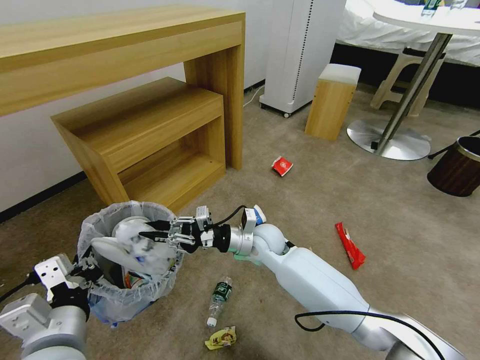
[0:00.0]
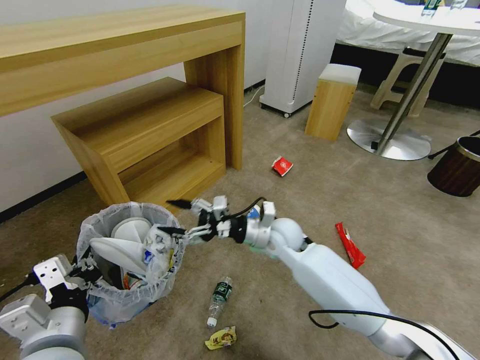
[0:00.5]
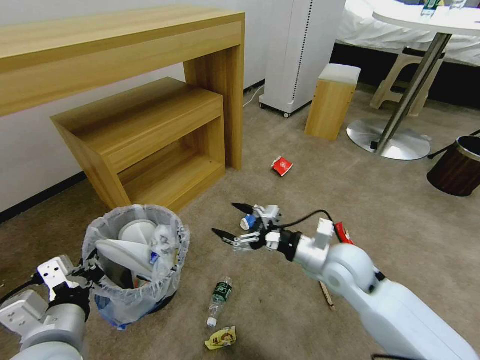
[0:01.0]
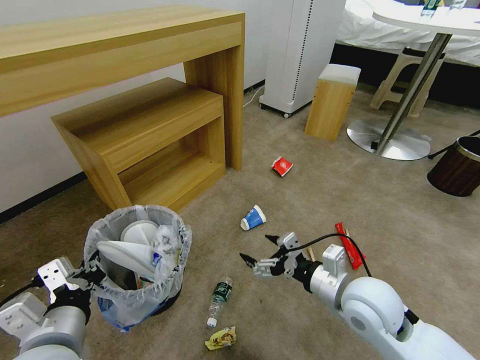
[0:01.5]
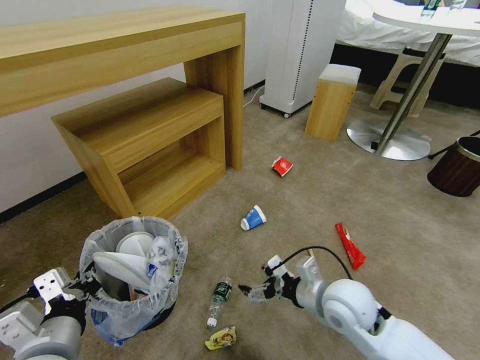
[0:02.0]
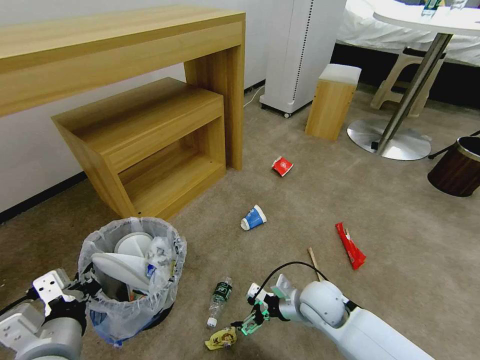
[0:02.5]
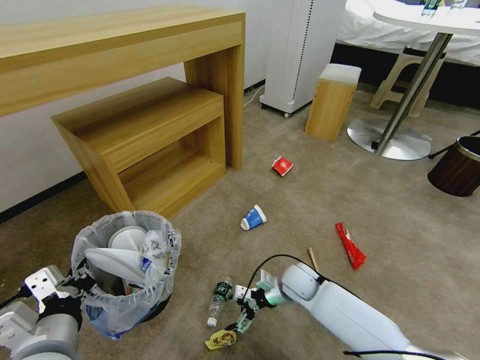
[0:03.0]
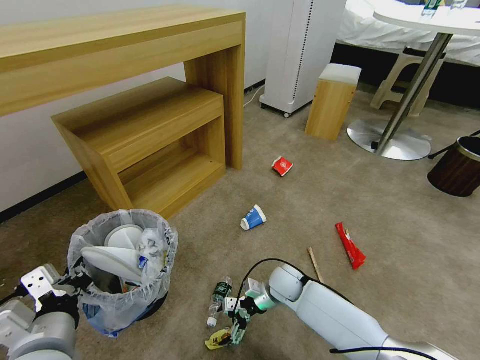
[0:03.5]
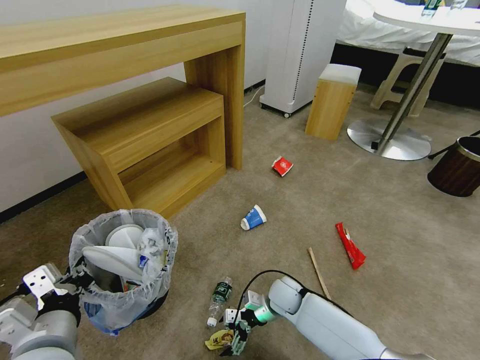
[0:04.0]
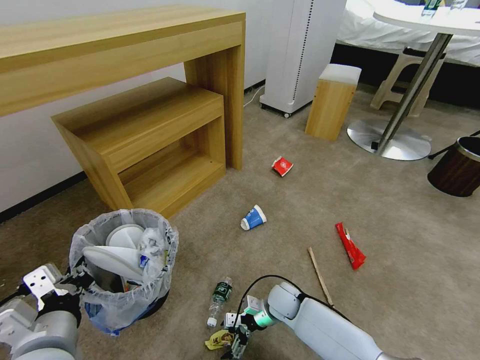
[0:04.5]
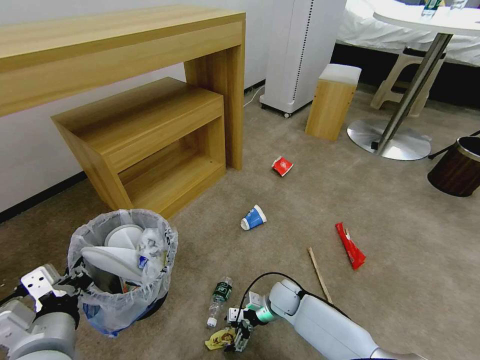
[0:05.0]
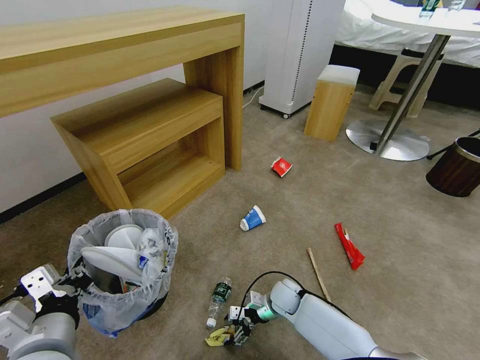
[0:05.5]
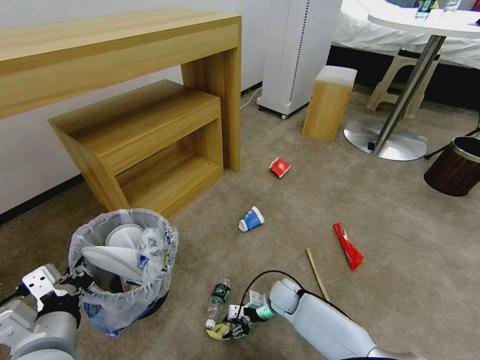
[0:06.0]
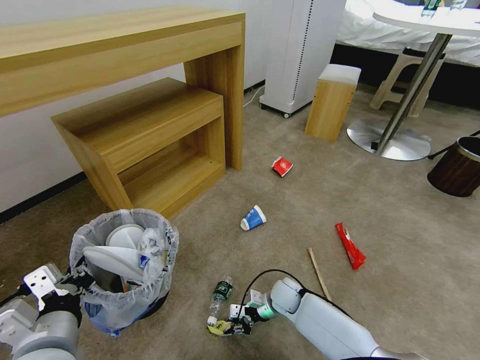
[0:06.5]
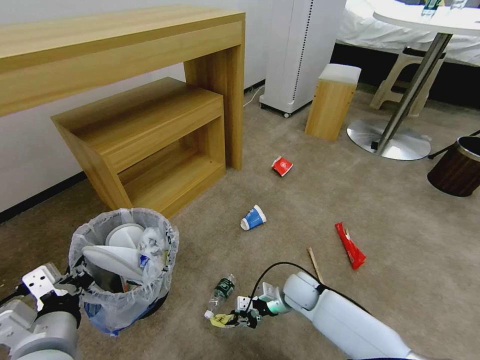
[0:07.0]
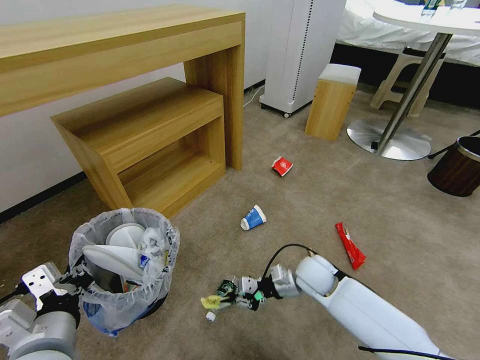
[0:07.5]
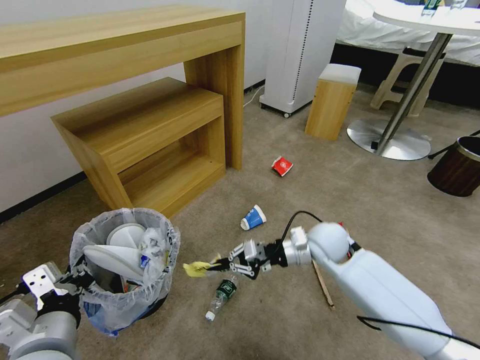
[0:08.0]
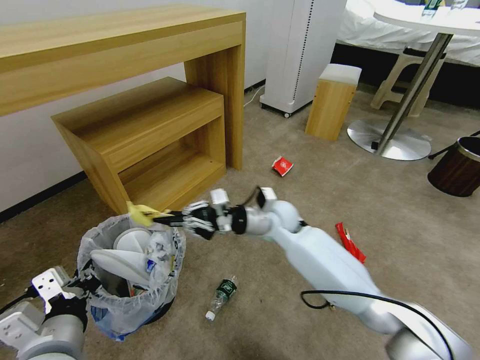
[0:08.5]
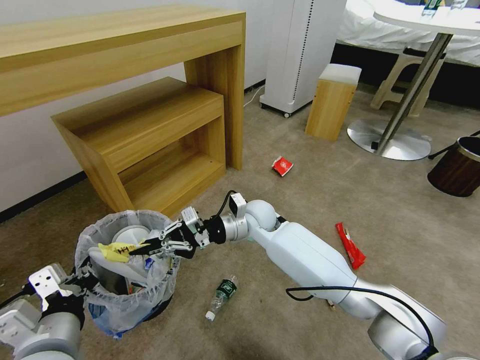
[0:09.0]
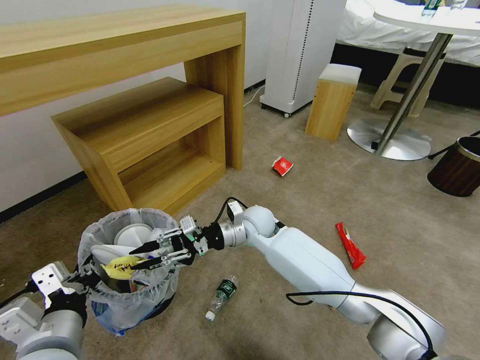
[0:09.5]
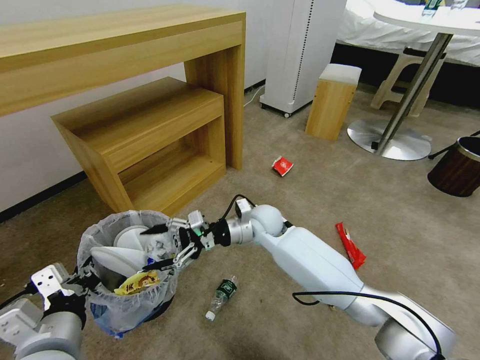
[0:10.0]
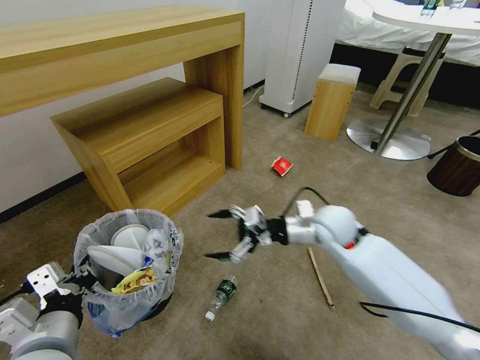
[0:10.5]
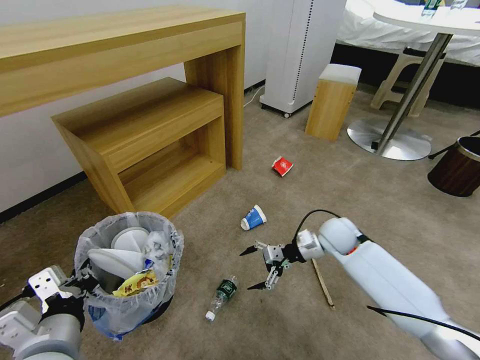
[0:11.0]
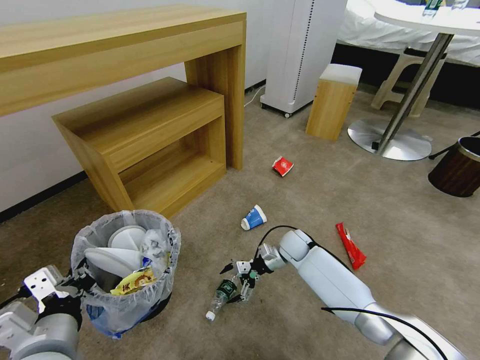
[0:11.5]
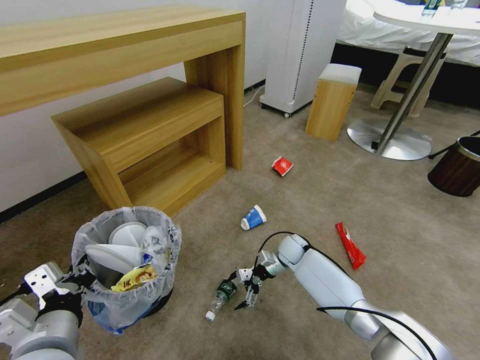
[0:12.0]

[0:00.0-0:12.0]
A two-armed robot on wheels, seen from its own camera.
Task of the whole recording: Pick up the trash bin and place the garbage on the floor into it.
0:00.0 to 0:02.0: The right gripper is displaced backward and to the right by approximately 20 cm, and opens up.
0:02.0 to 0:04.0: The right gripper moves downward and forward, about 20 cm.
0:04.0 to 0:06.0: The right gripper closes its fingers.
0:06.0 to 0:08.0: The right gripper moves upward, some 25 cm, and closes its fingers.
0:08.0 to 0:10.0: The right gripper heads to the left, covering about 15 cm, and opens.
0:10.0 to 0:12.0: The right gripper travels downward and to the right by approximately 20 cm.

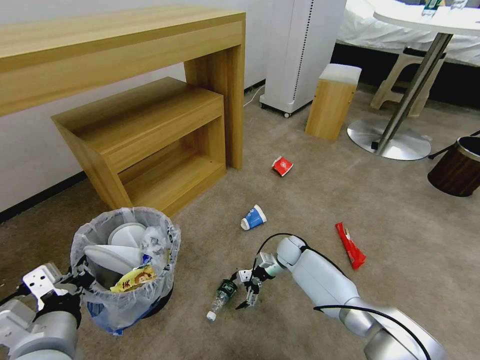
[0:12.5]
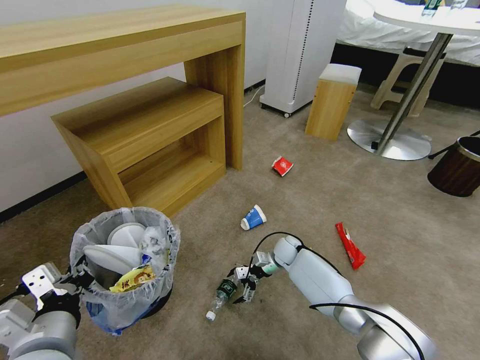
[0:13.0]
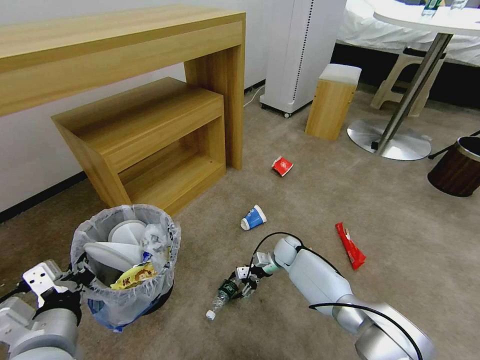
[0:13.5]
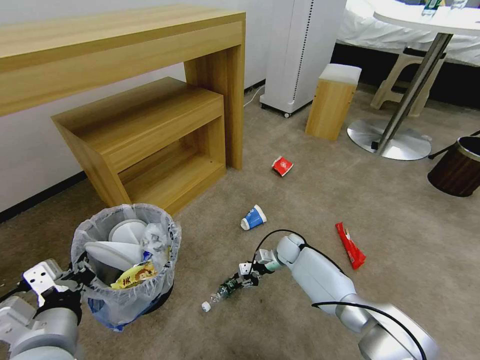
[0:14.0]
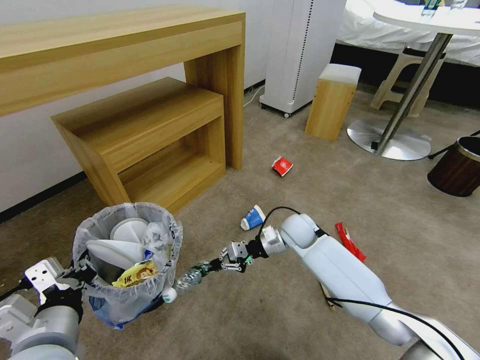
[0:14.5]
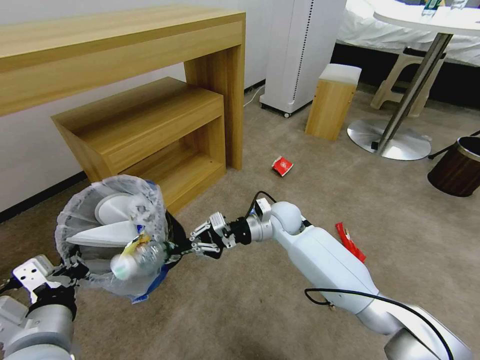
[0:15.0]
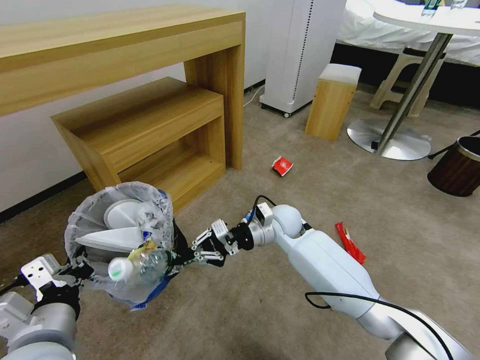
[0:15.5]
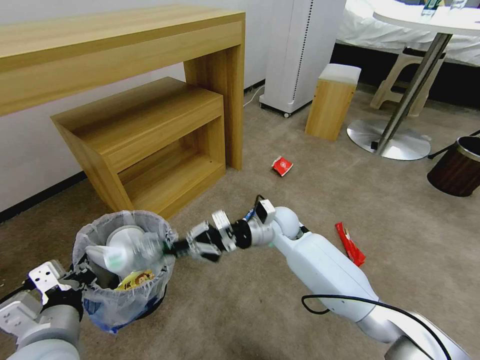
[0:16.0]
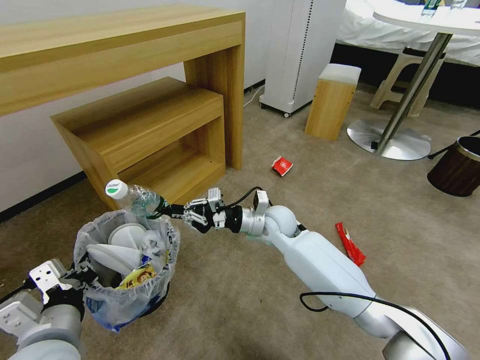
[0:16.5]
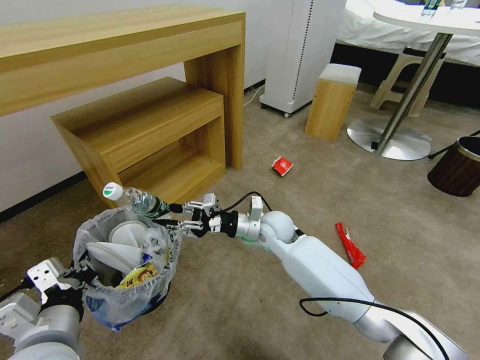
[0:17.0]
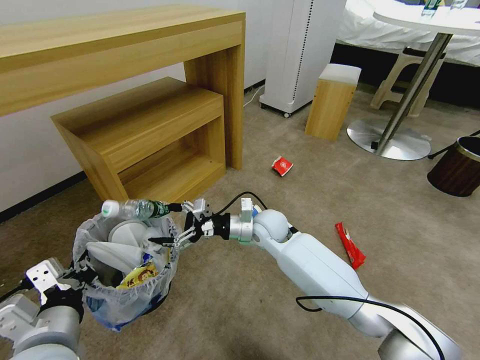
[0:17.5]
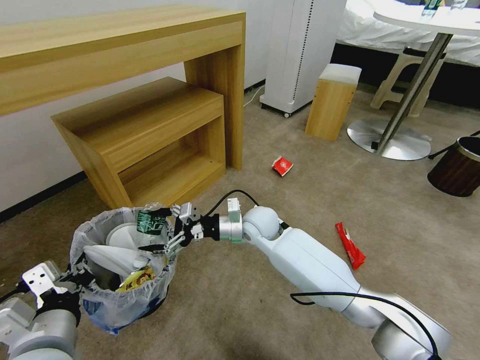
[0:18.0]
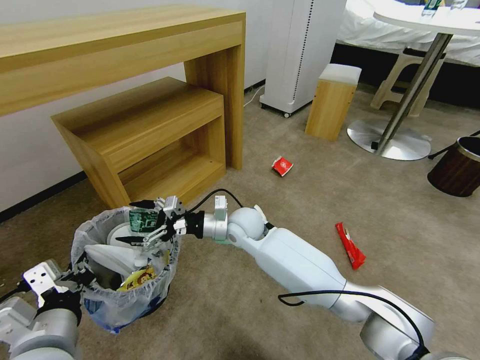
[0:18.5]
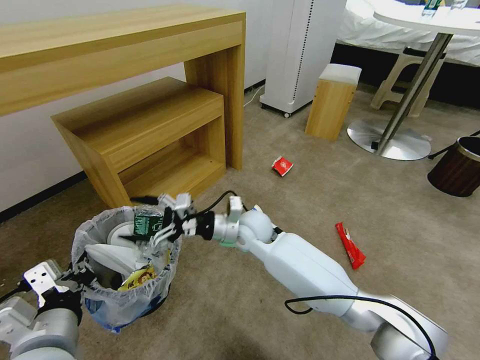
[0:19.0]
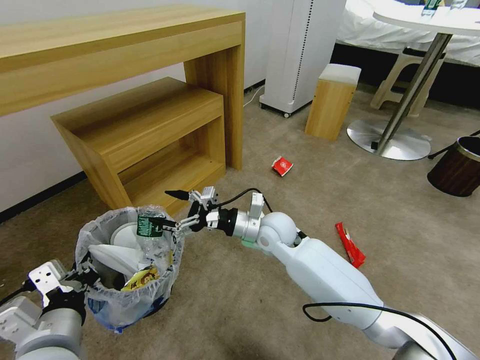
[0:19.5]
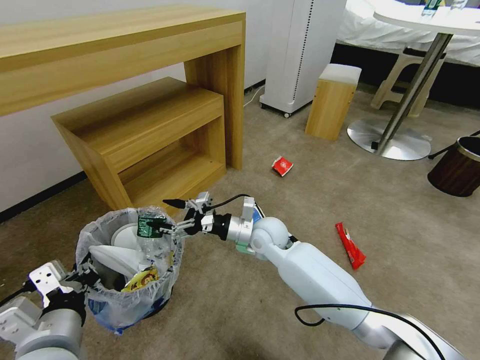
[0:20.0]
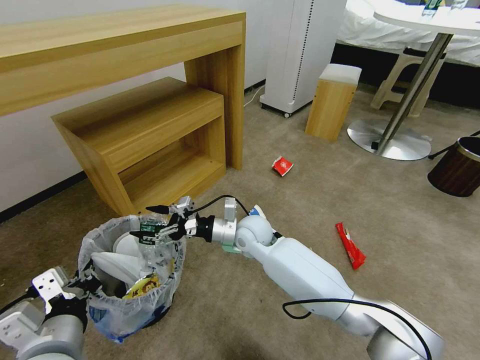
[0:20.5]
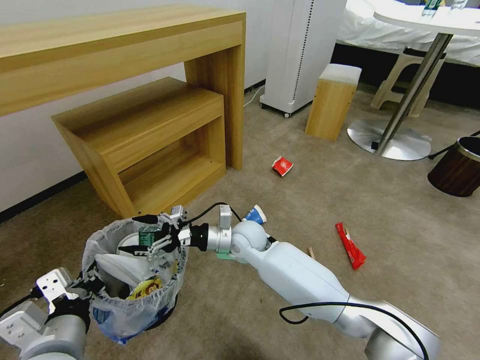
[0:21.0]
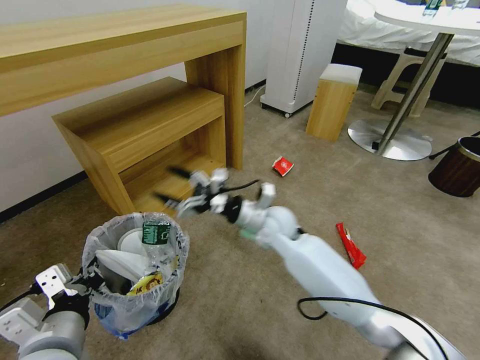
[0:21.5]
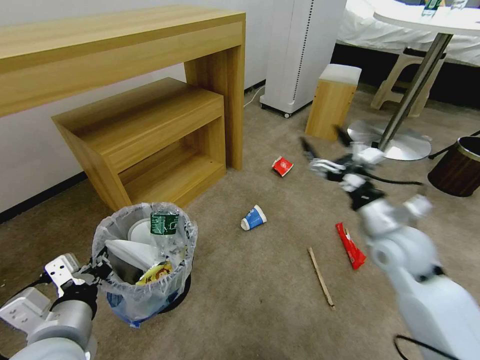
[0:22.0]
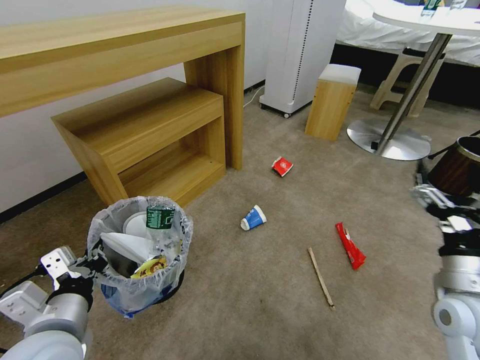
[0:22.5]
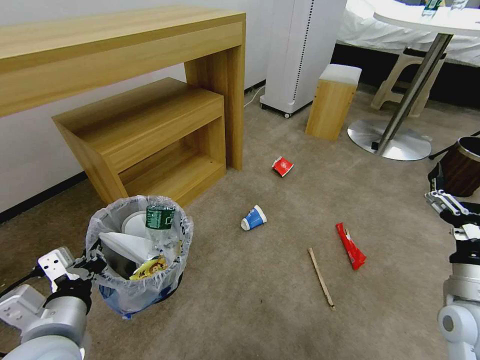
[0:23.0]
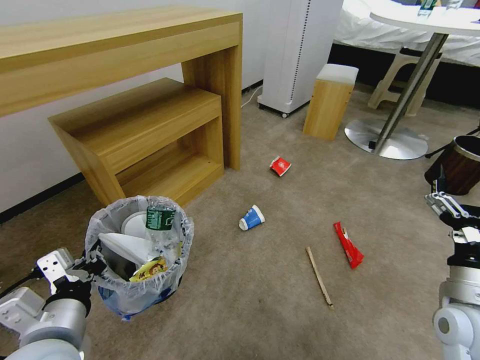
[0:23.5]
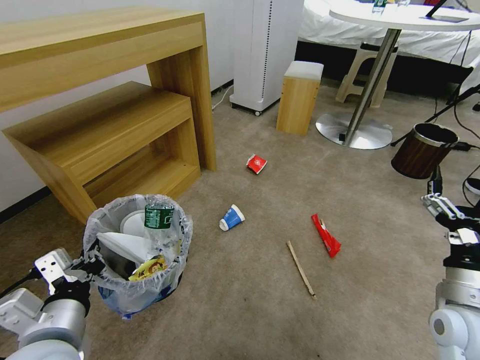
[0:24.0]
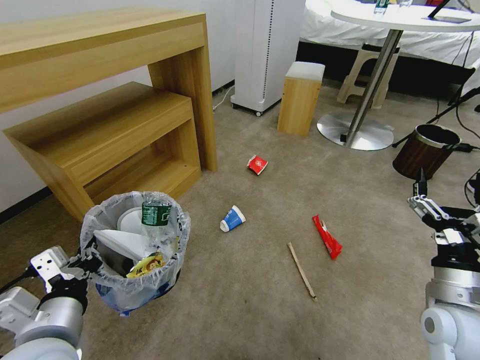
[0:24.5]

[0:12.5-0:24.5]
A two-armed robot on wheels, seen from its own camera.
Task of the whole recording: Pick up the trash bin and place the garbage on the floor into it.
0:12.5 to 0:14.5: The right gripper moves upward, approximately 15 cm, and closes.
0:14.5 to 0:16.5: The right gripper heads to the left and upward, covering about 10 cm.
0:16.5 to 0:18.5: The right gripper shifts some 10 cm to the left, and opens.
0:20.5 to 0:22.5: The right gripper is displaced to the right and backward by approximately 40 cm.

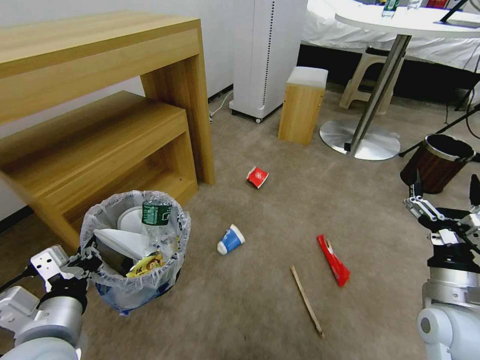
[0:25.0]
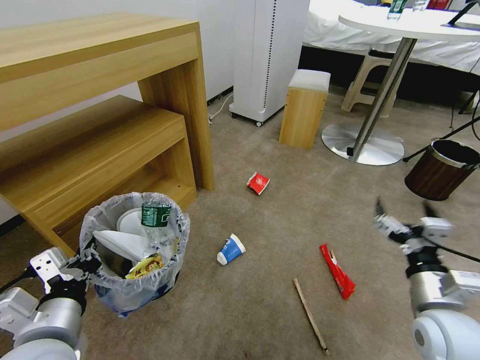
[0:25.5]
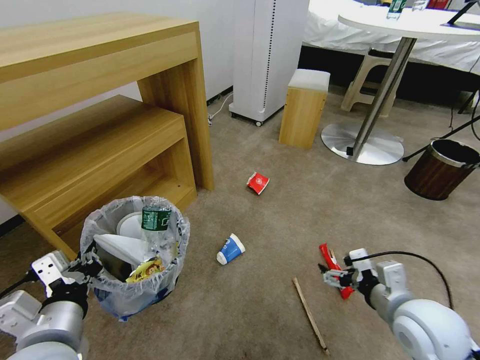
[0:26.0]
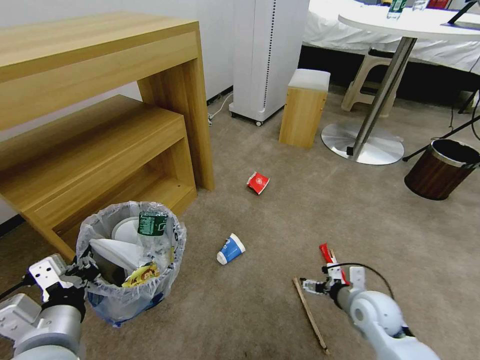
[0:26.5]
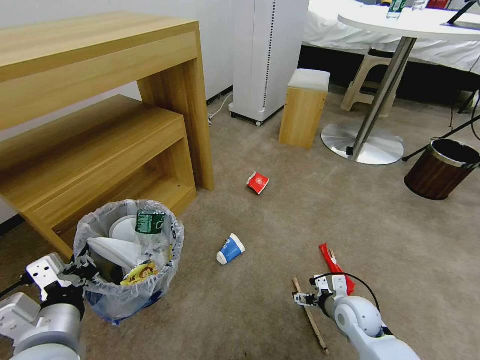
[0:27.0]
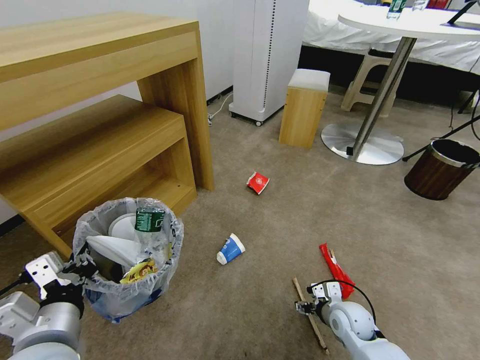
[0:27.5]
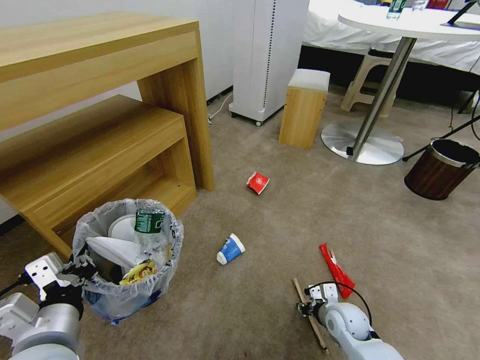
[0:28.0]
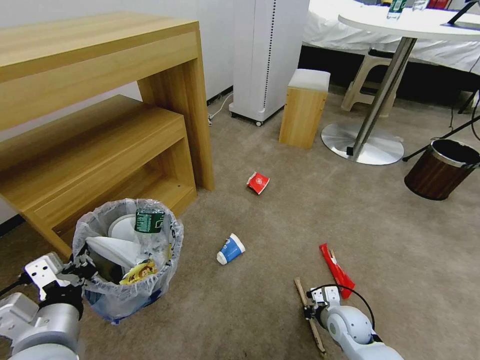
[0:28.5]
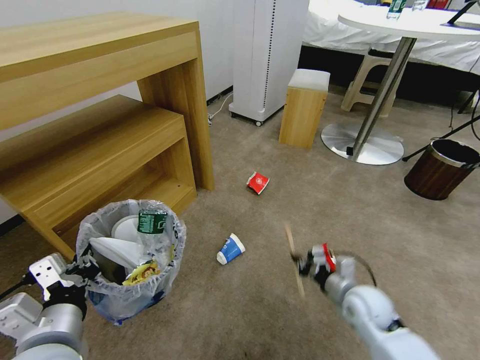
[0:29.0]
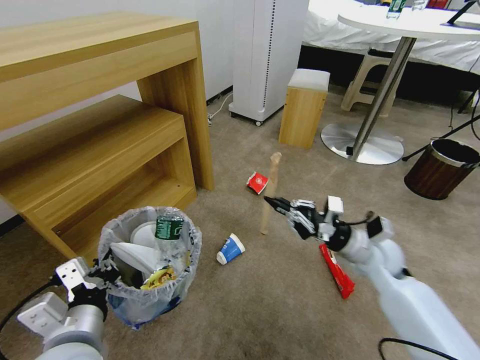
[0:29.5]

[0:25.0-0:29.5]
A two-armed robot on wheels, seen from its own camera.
Task of the whole recording: Pick up the trash bin and place the garbage on the floor into it.
0:25.0 to 0:27.0: The right gripper goes about 20 cm downward and forward.
0:27.0 to 0:29.5: The right gripper goes approximately 15 cm upward and forward, and closes its fingers.
